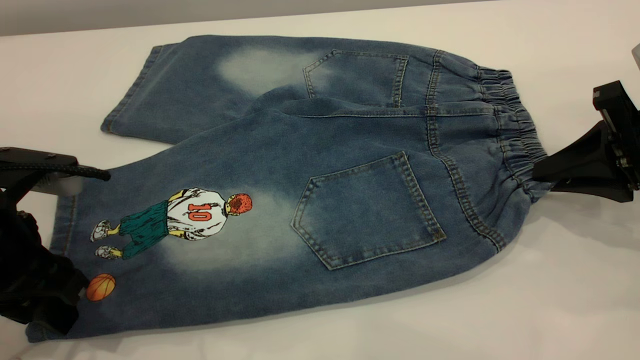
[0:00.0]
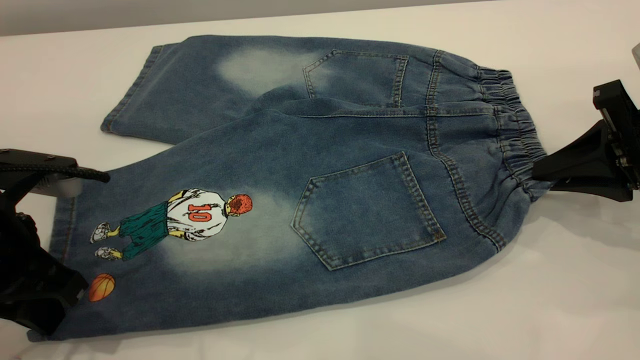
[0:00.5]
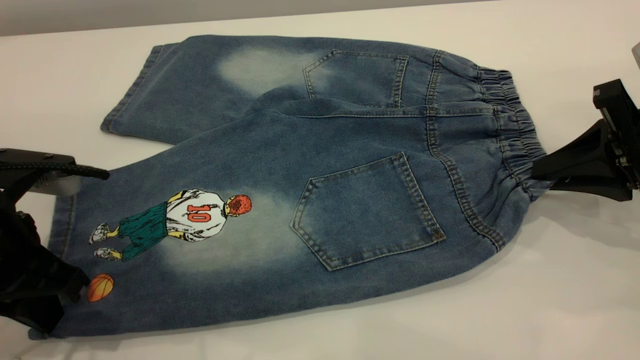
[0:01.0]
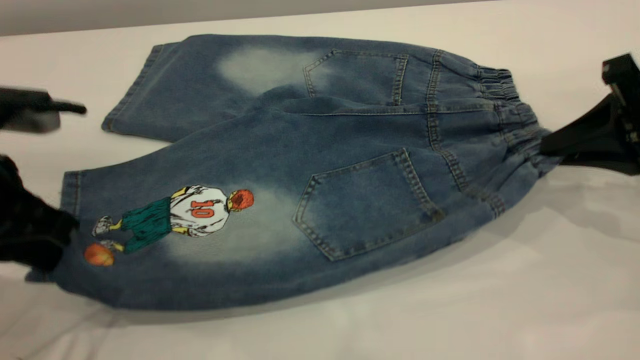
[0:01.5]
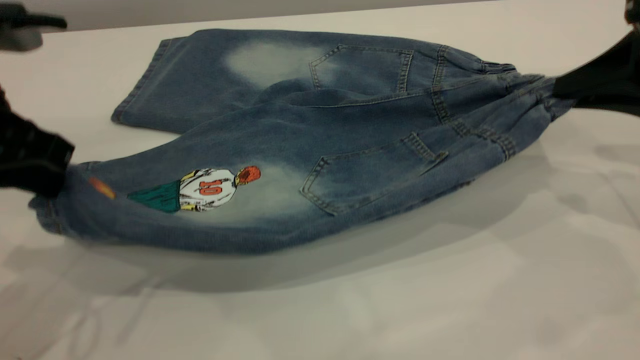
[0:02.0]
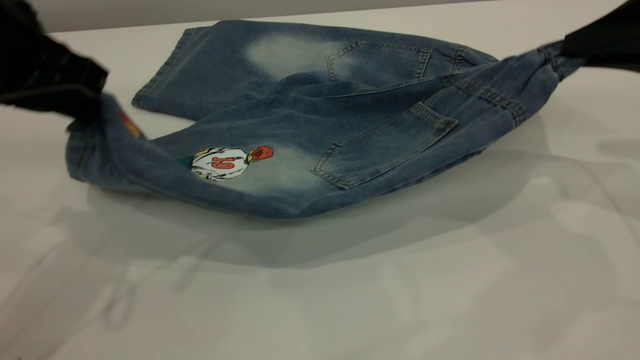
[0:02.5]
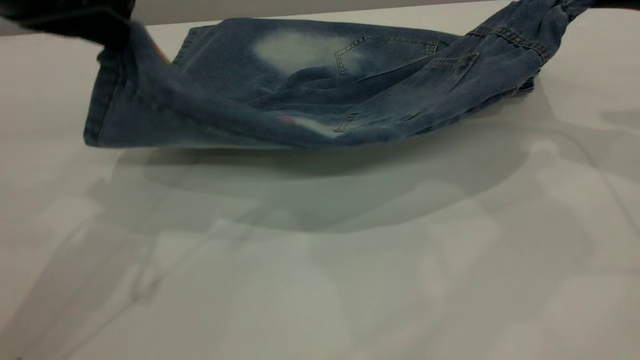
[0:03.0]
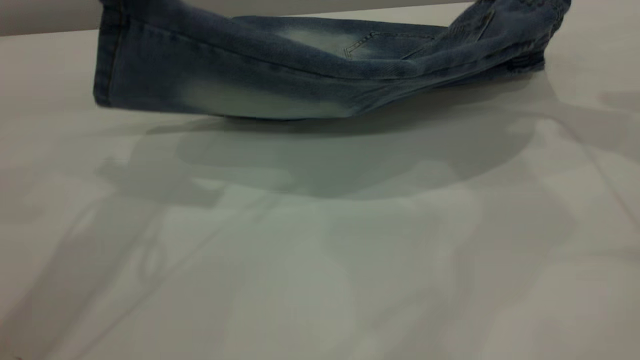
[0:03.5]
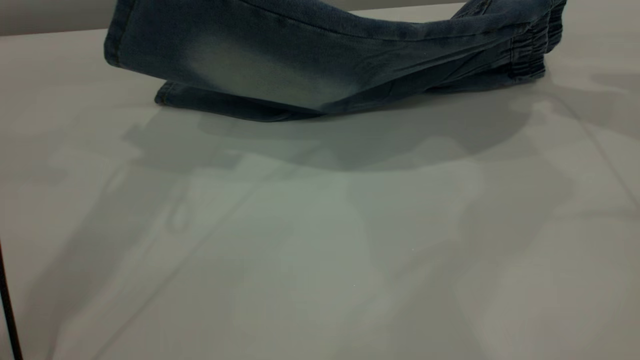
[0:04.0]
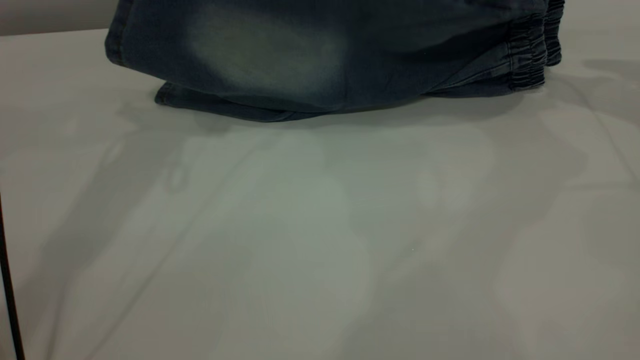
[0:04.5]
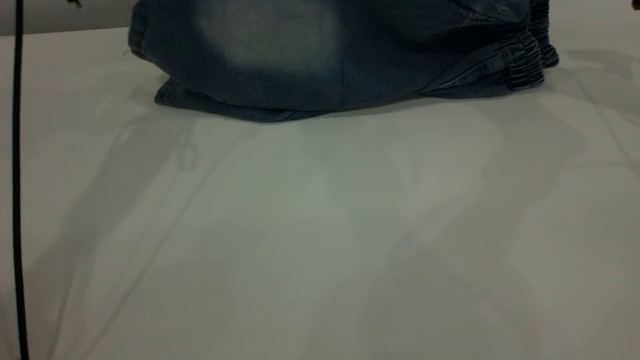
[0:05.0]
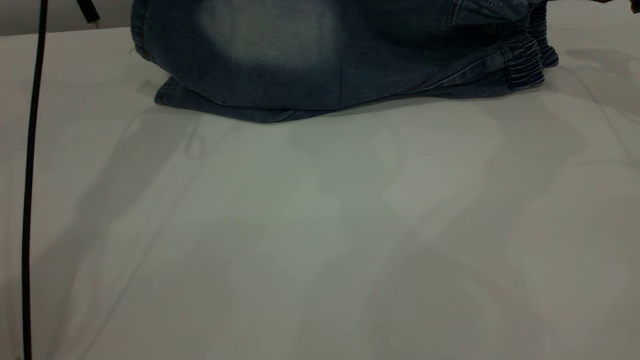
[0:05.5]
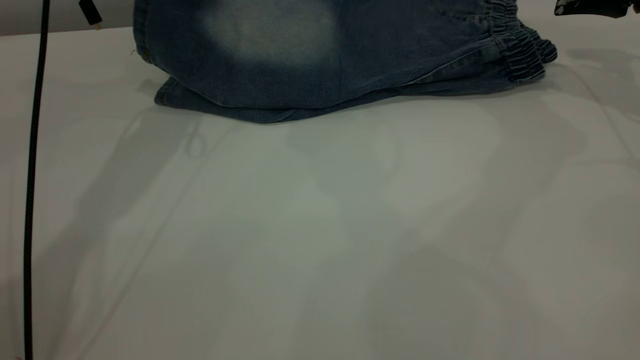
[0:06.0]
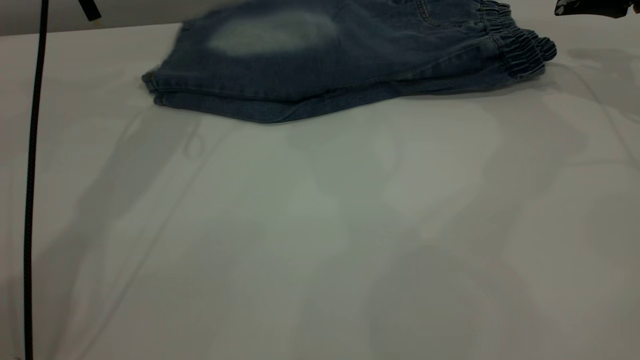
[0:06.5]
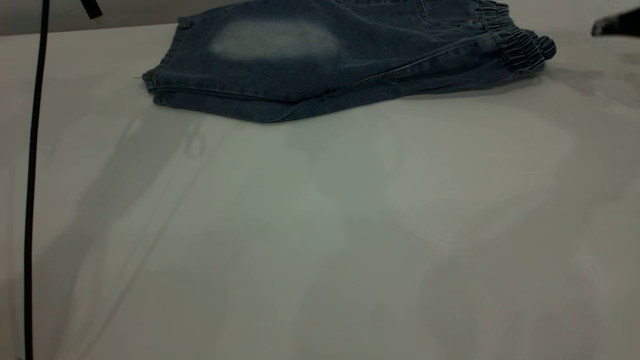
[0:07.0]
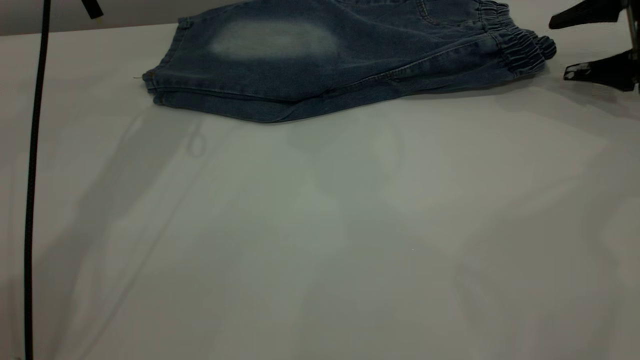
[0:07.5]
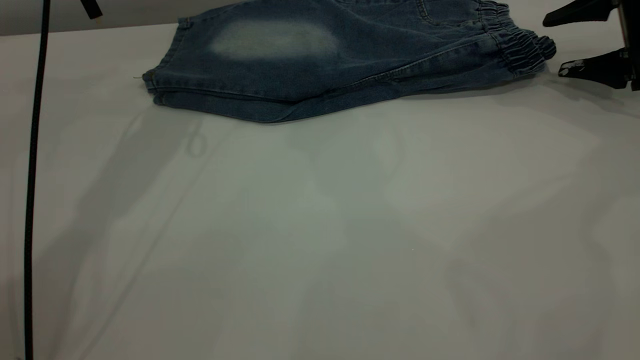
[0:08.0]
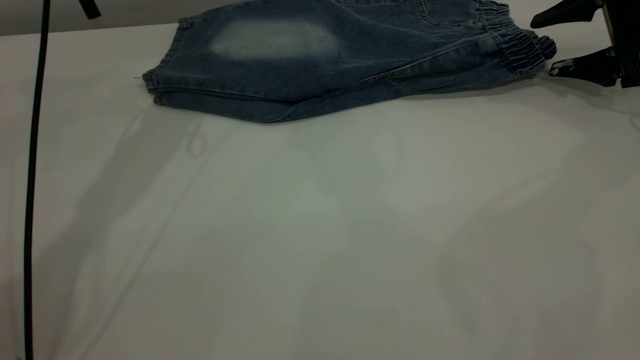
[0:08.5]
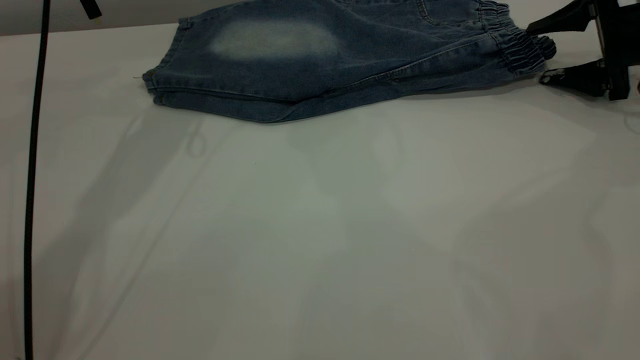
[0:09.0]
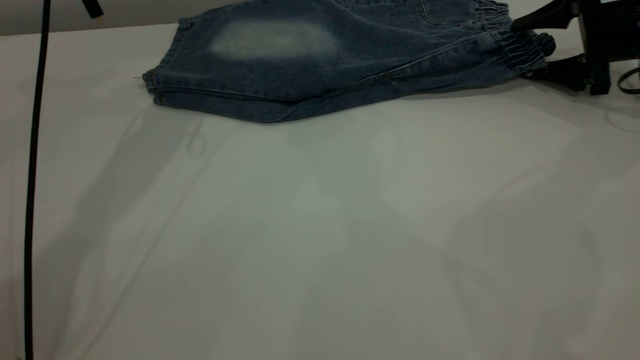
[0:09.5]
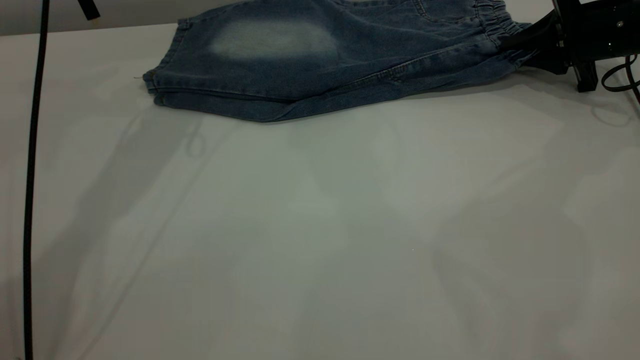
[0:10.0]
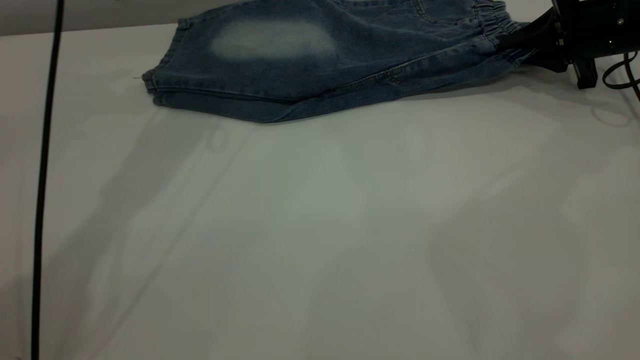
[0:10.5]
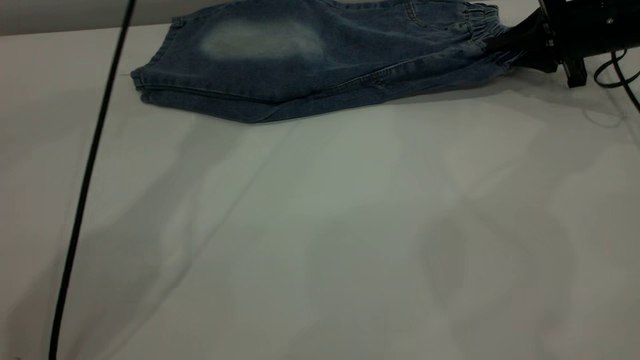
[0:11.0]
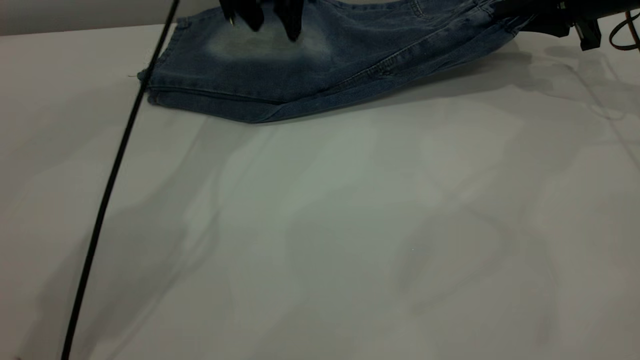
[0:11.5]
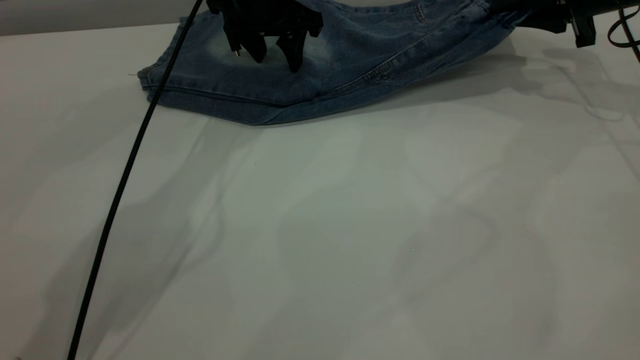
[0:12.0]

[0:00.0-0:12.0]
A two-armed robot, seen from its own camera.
Step, 0:00.0 to 0:06.5: Fold the bottom of the pants upward.
0:00.0 to 0:02.0: Both grippers travel together upward, roughly 10 cm. The left gripper closes up.
0:02.0 to 0:04.0: The right gripper heads forward and upward, covering about 15 cm. Meanwhile the left gripper shifts roughly 15 cm forward, upward and to the right.
0:04.0 to 0:06.0: The right gripper is displaced forward and downward by about 10 cm, and opens its fingers; the left gripper travels forward and downward by roughly 10 cm.
0:06.0 to 0:08.0: The left gripper opens. The right gripper shifts some 10 cm downward.
0:08.0 to 0:10.0: The right gripper changes place by roughly 5 cm, and closes up.
0:10.0 to 0:12.0: The left gripper shifts about 15 cm to the right, downward and forward. Meanwhile the right gripper moves upward, about 5 cm.

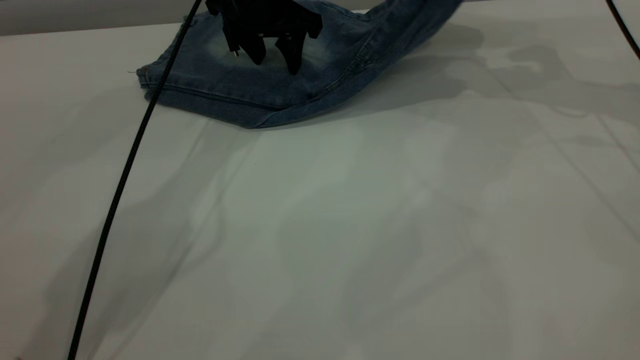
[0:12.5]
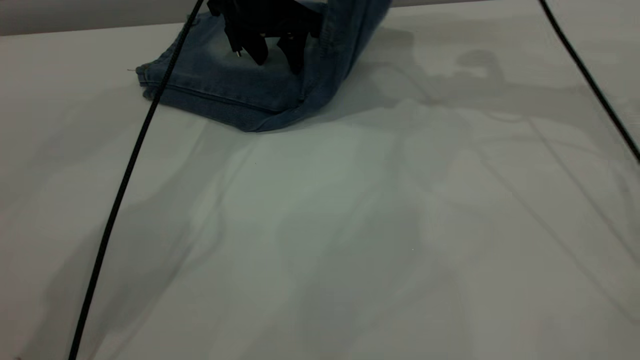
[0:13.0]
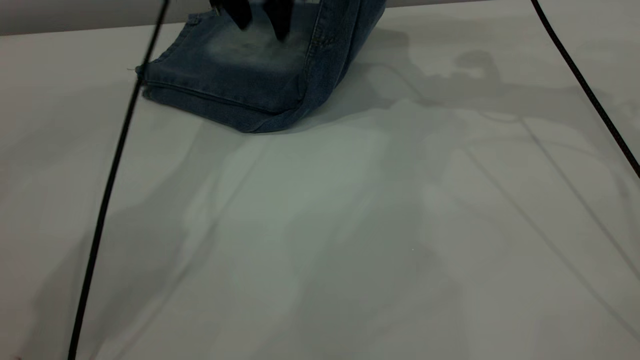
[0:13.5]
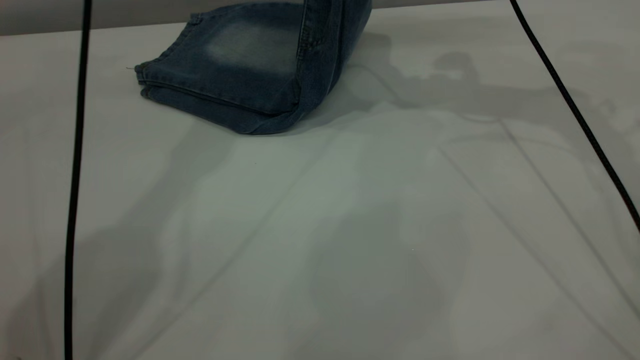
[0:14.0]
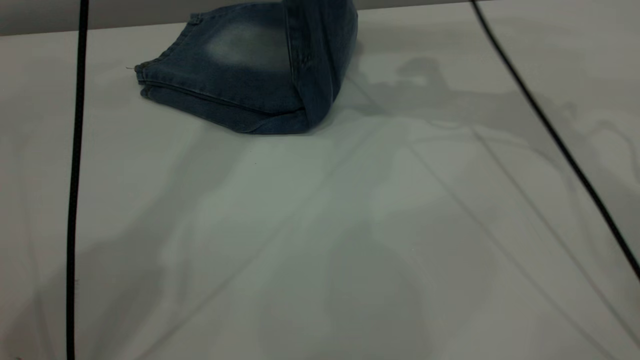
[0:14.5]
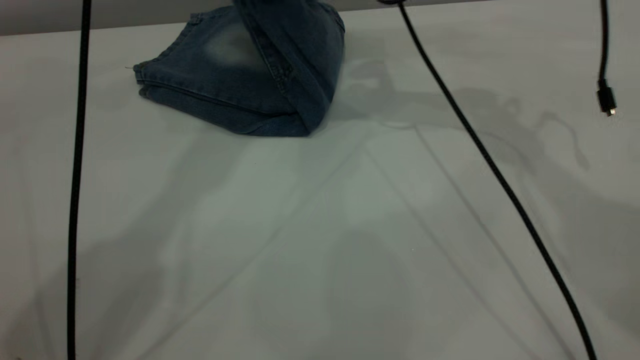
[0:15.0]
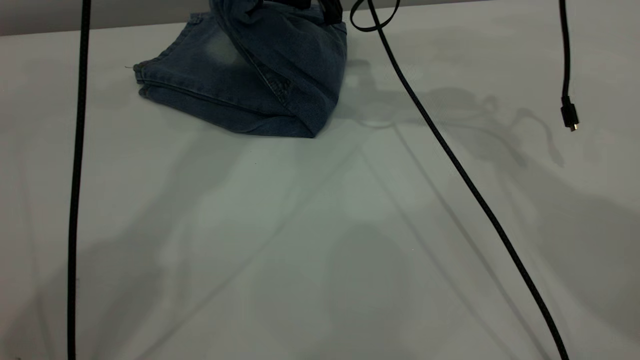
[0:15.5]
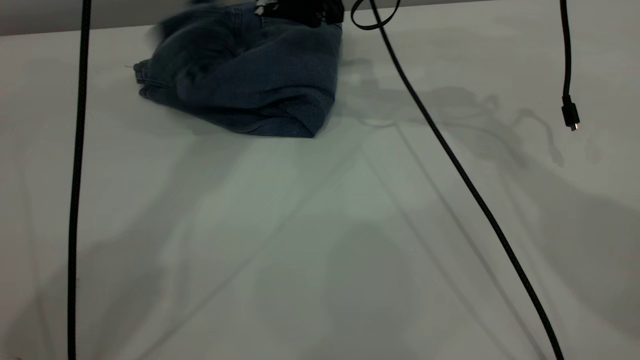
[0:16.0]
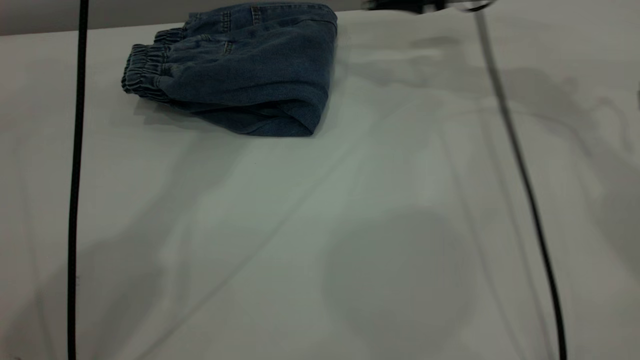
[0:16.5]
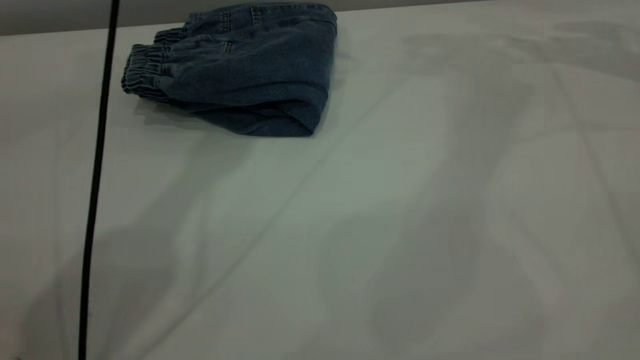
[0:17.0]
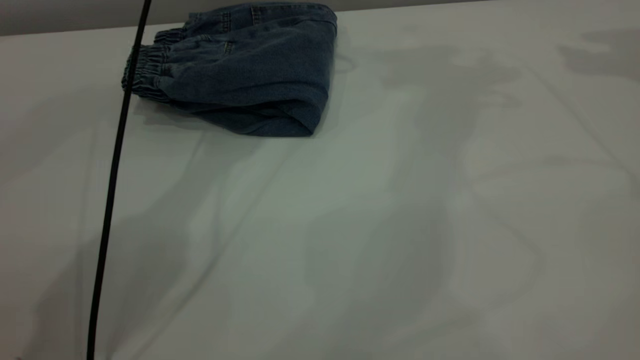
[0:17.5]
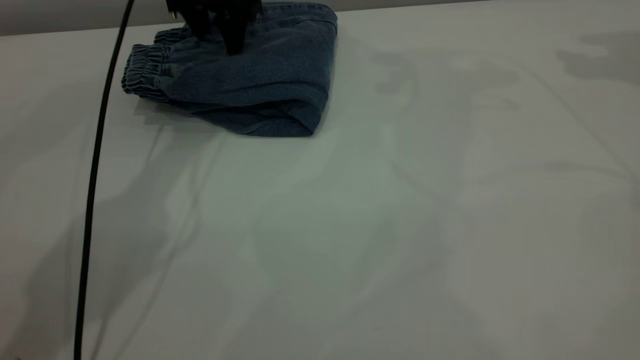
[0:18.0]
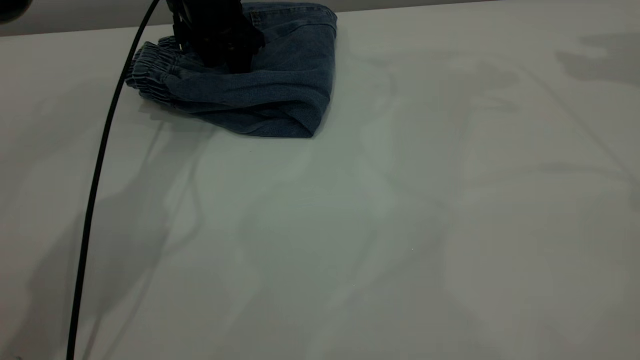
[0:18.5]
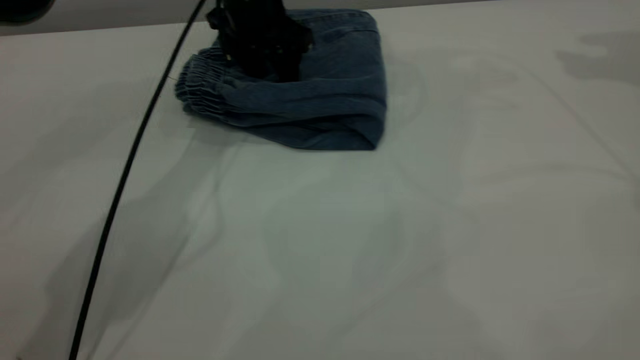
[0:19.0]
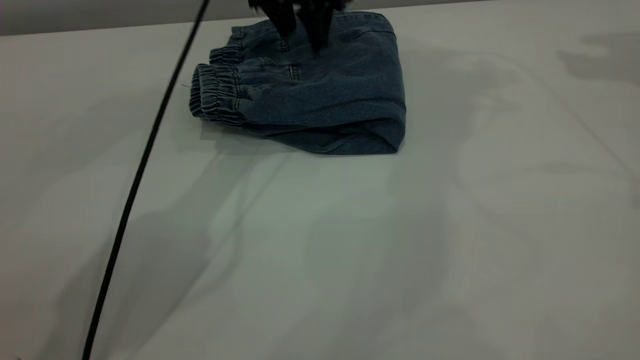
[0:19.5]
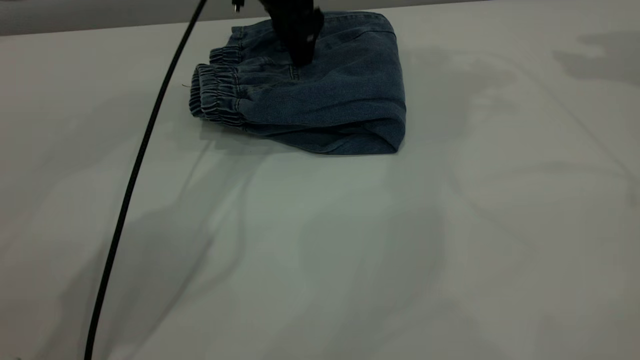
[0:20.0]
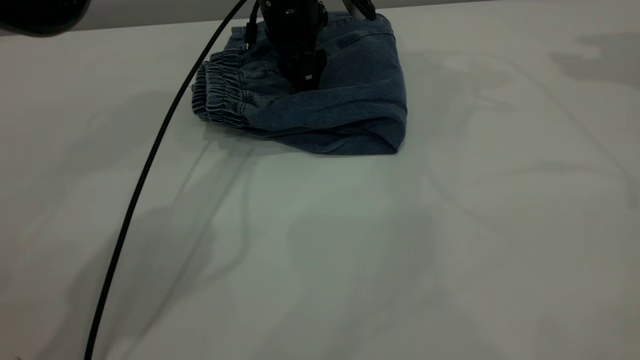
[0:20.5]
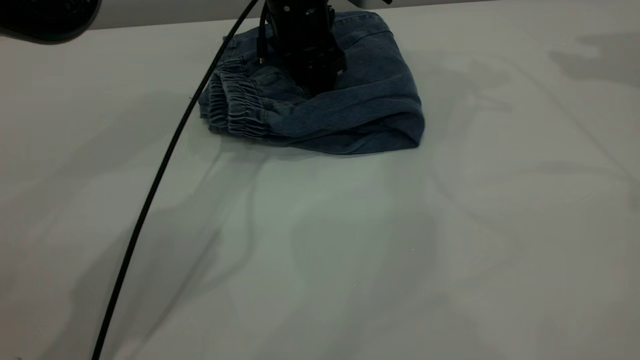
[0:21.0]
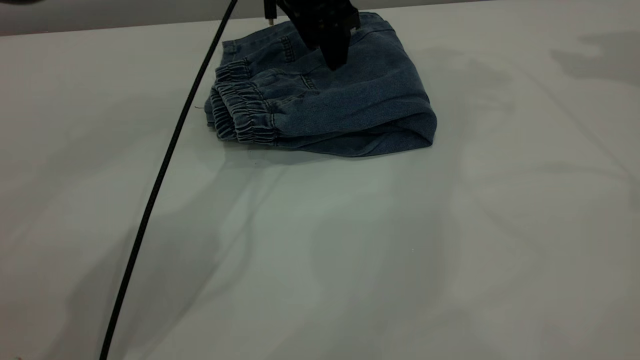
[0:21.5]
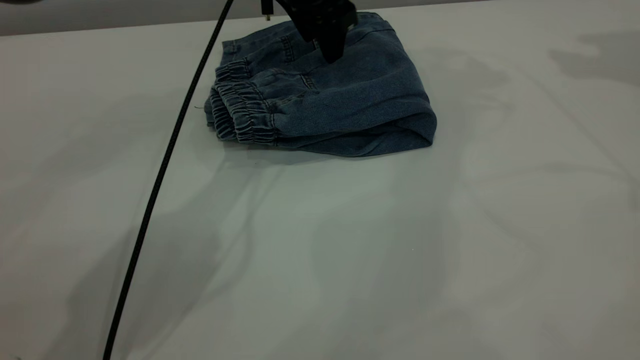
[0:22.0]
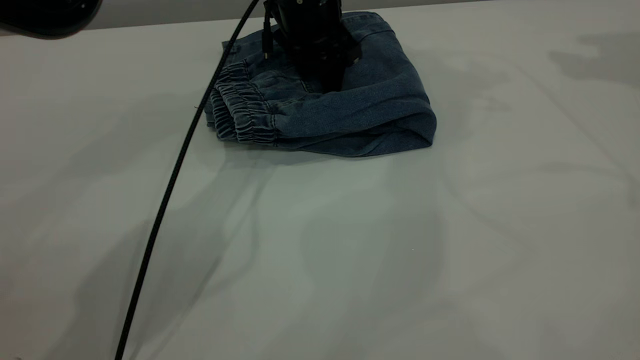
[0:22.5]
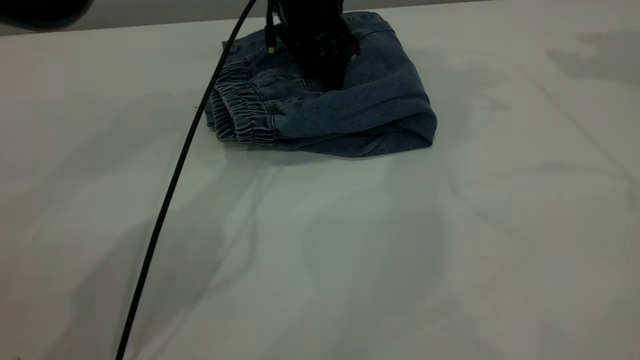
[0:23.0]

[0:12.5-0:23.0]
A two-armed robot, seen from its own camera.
Step, 0:12.5 to 0:16.0: Fold your pants from right to left.
0:12.5 to 0:14.5: The left gripper moves upward, approximately 25 cm, while the right gripper moves to the left, roughly 15 cm.
0:14.5 to 0:16.5: The right gripper is displaced to the right and forward by roughly 10 cm, and opens its fingers.
0:16.5 to 0:19.0: The right gripper shifts approximately 25 cm to the right and upward. Meanwhile the left gripper shifts some 30 cm downward.
0:19.0 to 0:21.0: The left gripper ends up approximately 5 cm from where it was.
0:21.0 to 0:23.0: The grippers stay close to where they were, moving slightly.
